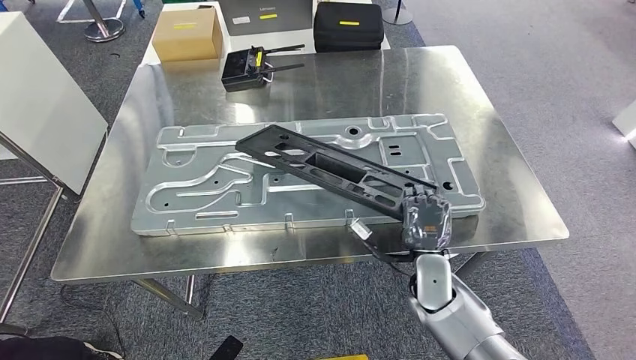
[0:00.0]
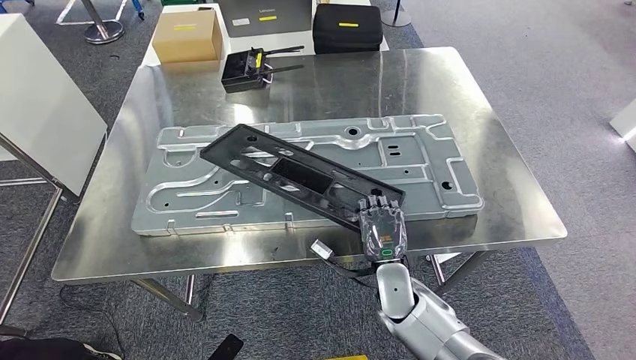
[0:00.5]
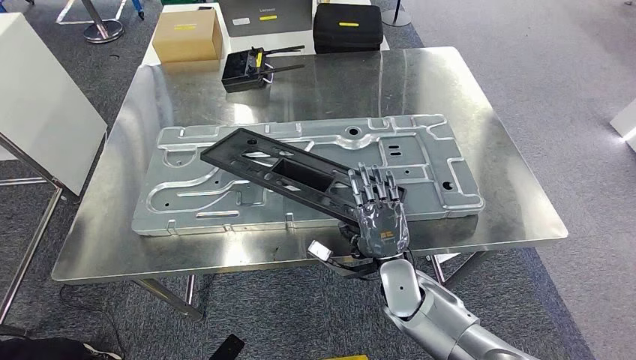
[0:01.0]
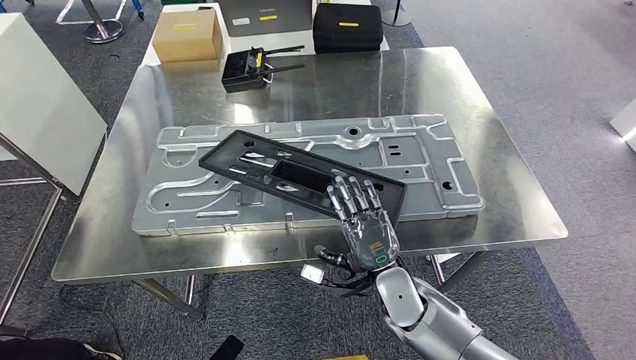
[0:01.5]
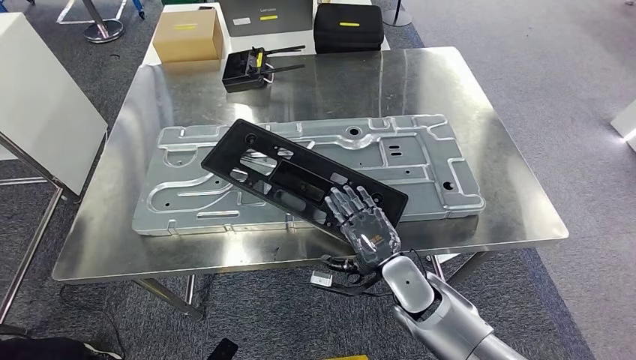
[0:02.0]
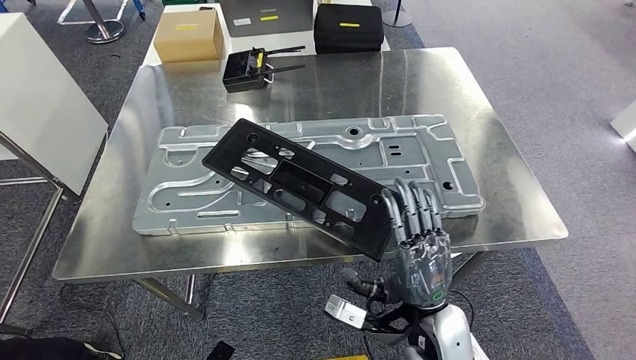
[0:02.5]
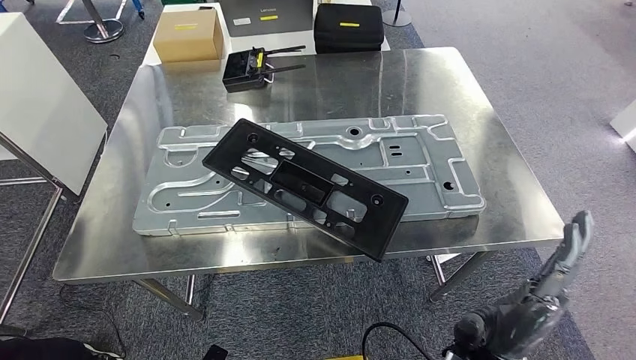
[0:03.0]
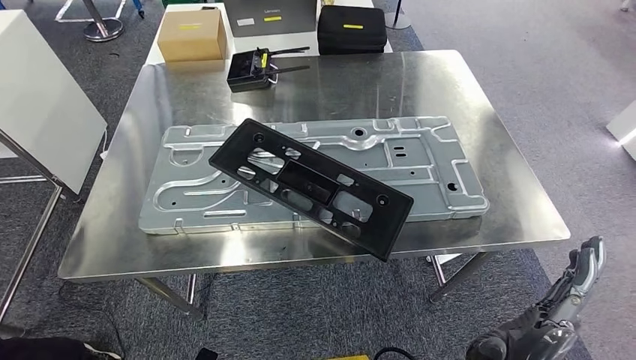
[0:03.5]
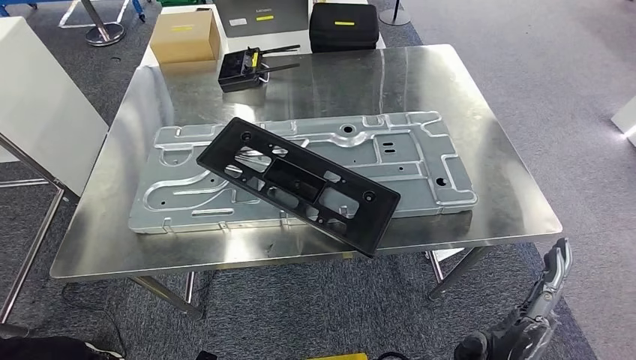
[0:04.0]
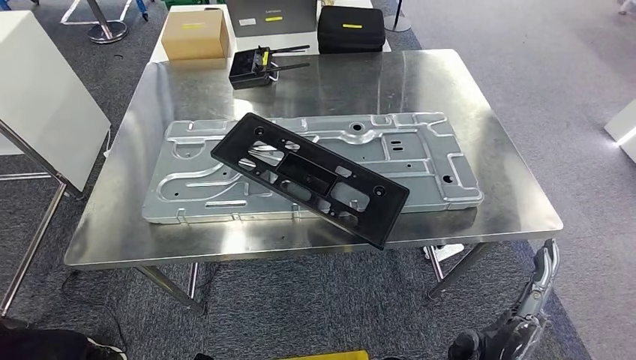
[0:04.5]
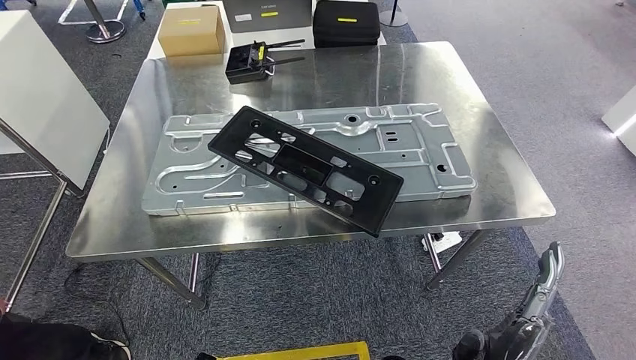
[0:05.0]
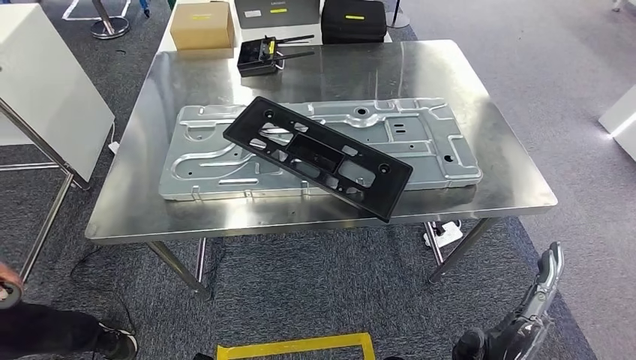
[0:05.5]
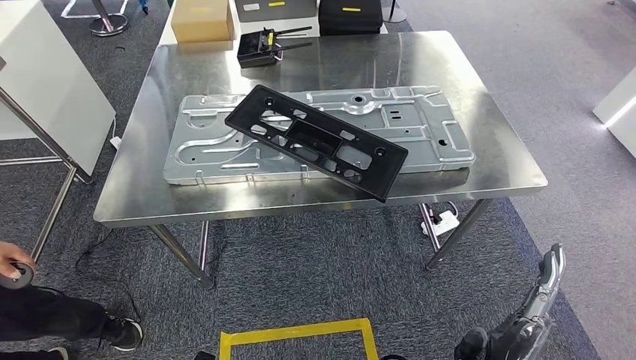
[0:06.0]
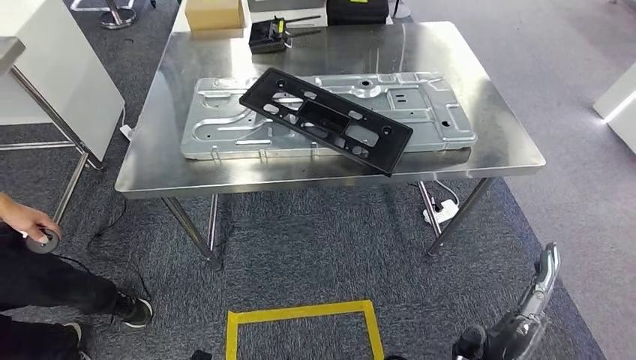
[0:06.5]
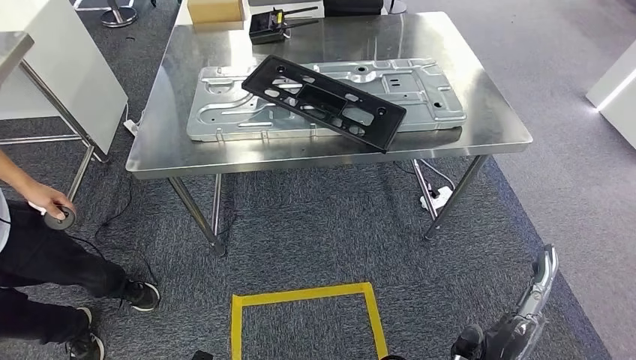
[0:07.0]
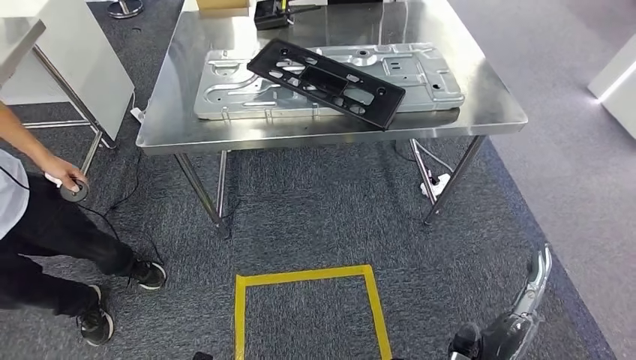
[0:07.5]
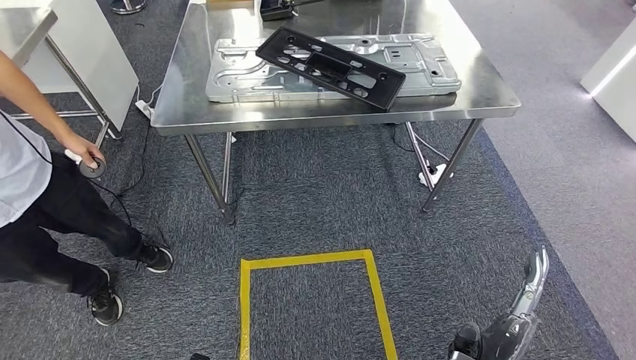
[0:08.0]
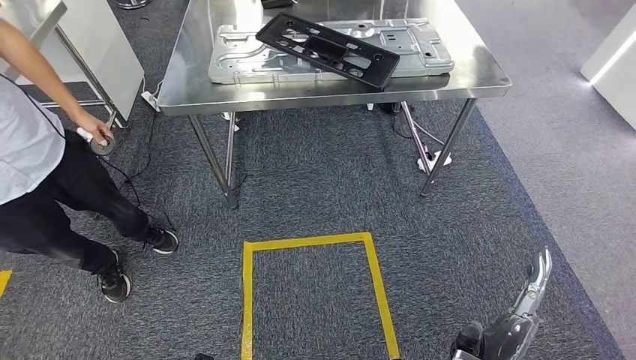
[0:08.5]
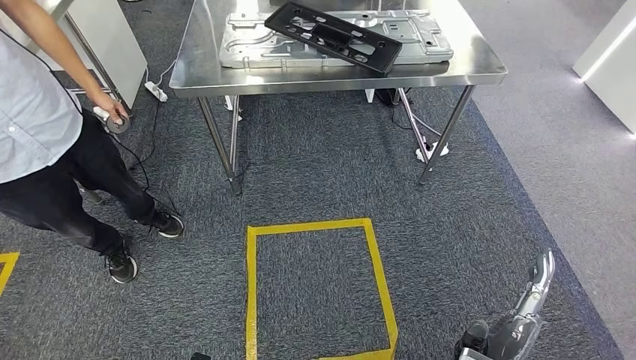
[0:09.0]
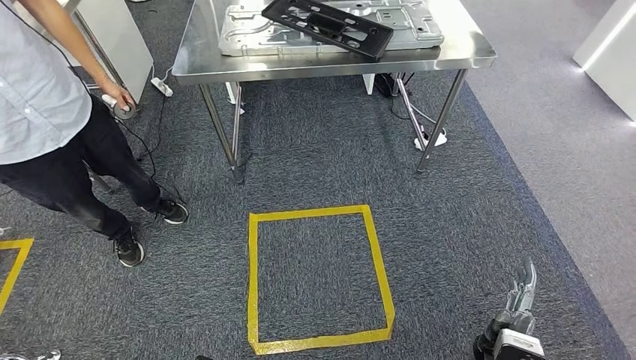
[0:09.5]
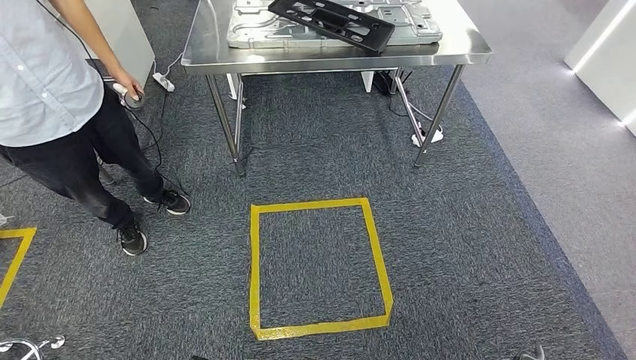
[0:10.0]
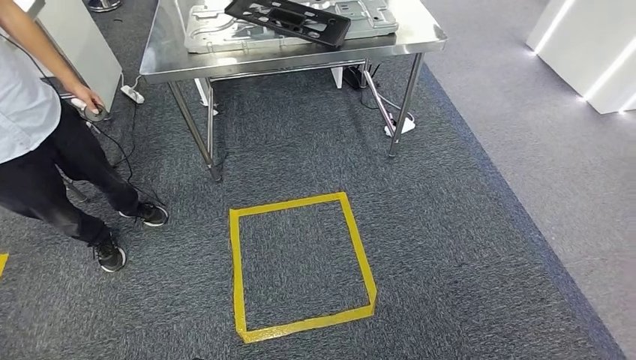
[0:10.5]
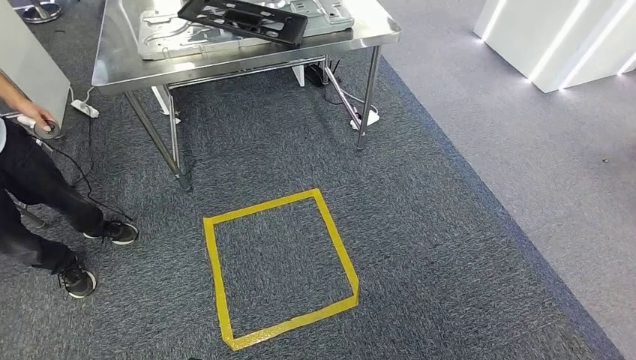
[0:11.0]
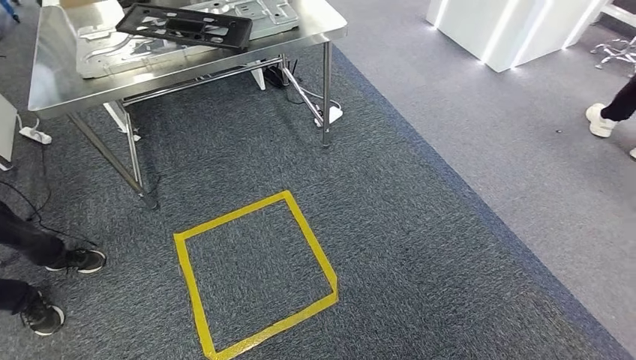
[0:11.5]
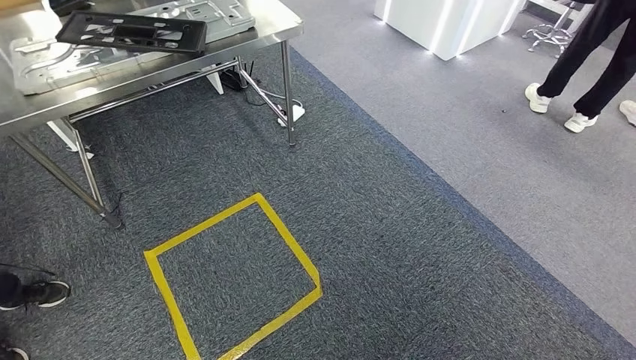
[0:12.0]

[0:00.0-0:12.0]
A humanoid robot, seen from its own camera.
Step, 0:00.0 to 0:03.0: Insert the large material into the corresponding slot on the workbench.
Step, 0:04.0 to 0:10.5: Move to the initial position of the shelf.
0:02.0 to 0:04.0: The right hand moves backward, about 15 cm.

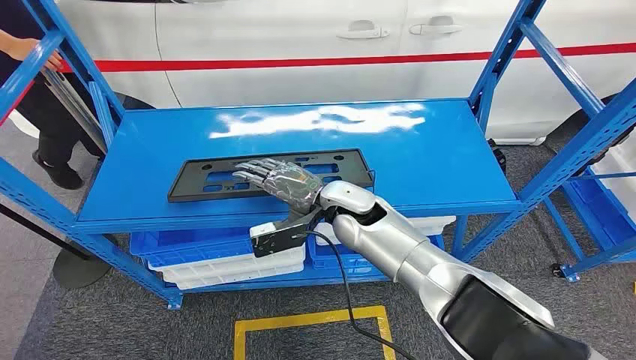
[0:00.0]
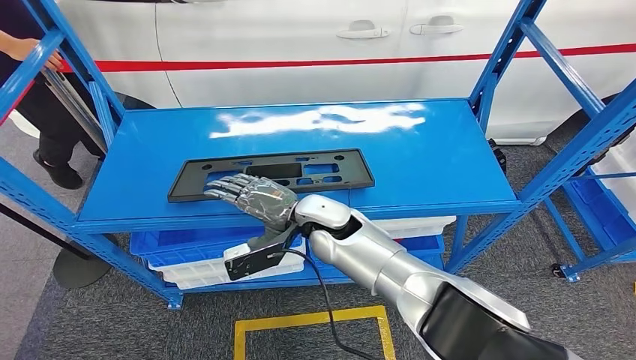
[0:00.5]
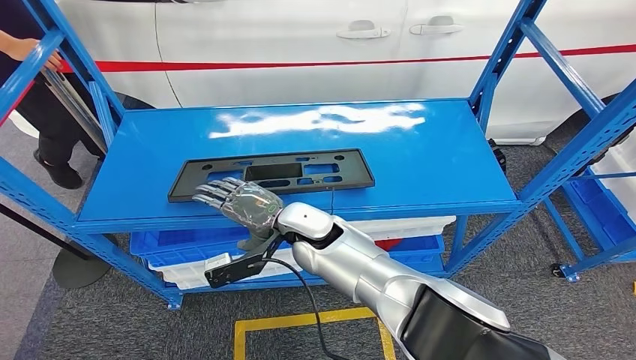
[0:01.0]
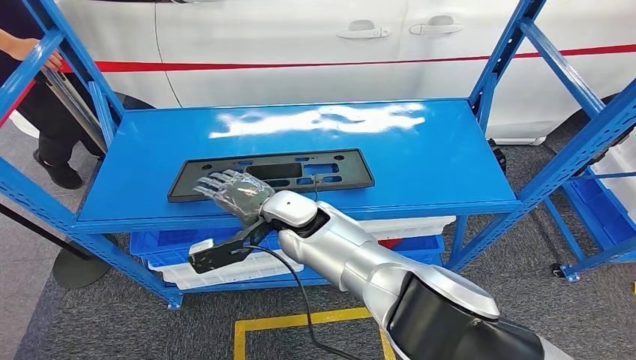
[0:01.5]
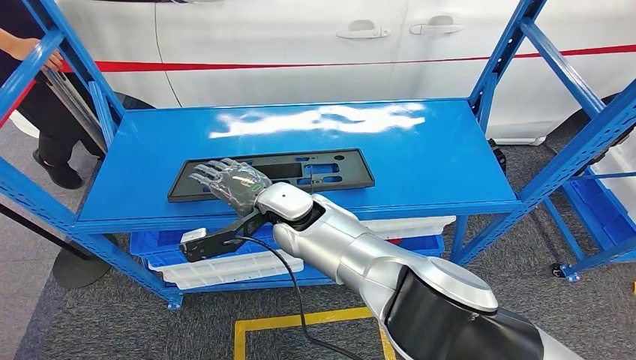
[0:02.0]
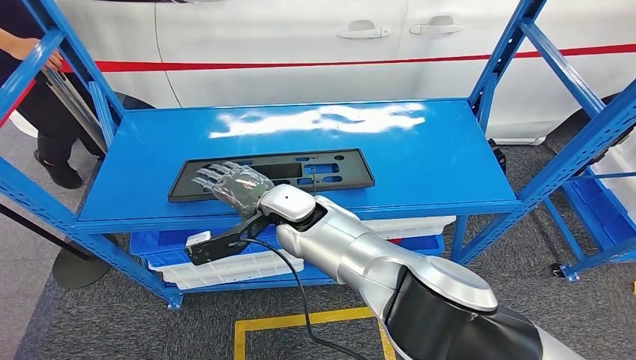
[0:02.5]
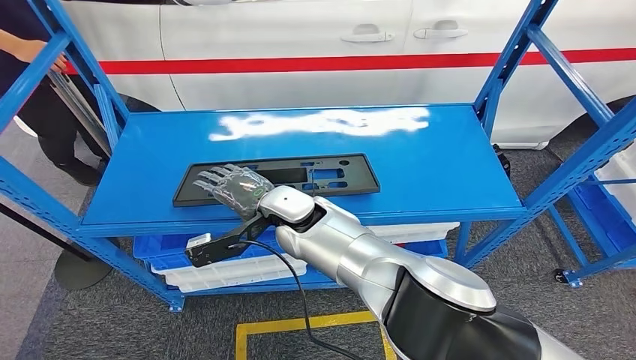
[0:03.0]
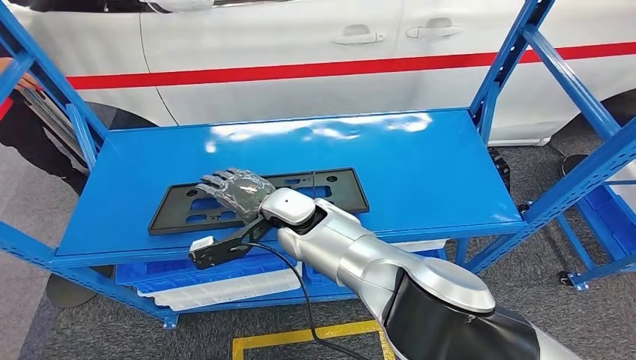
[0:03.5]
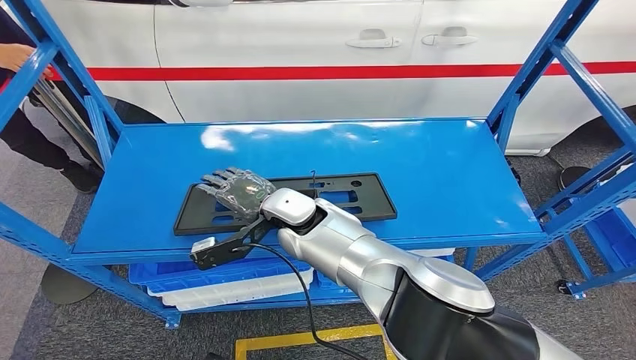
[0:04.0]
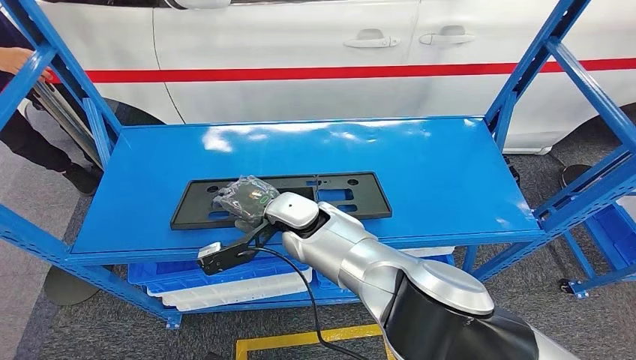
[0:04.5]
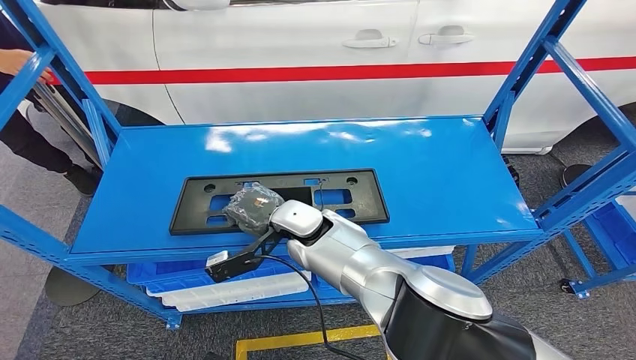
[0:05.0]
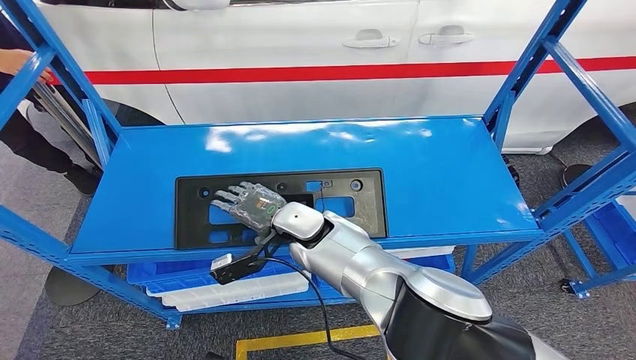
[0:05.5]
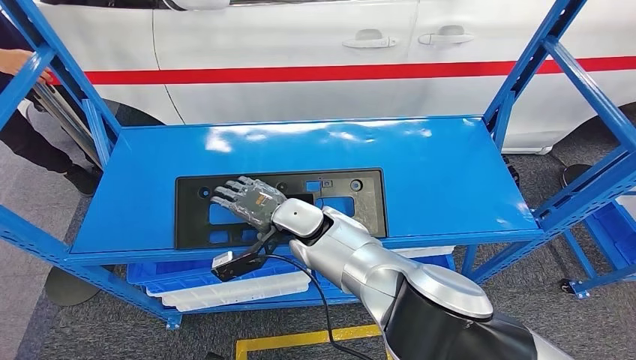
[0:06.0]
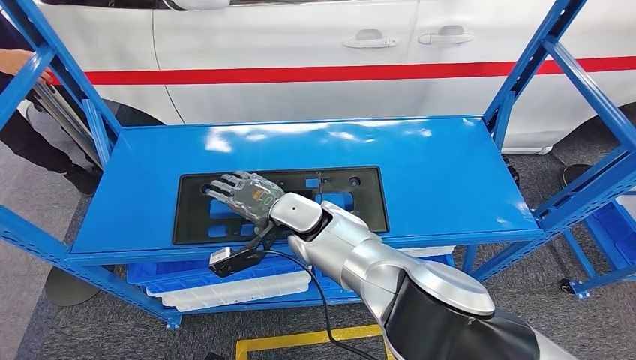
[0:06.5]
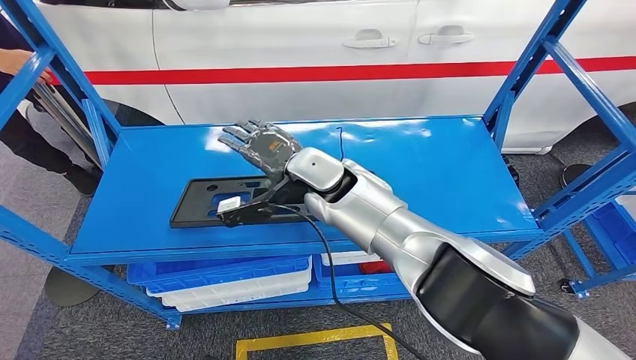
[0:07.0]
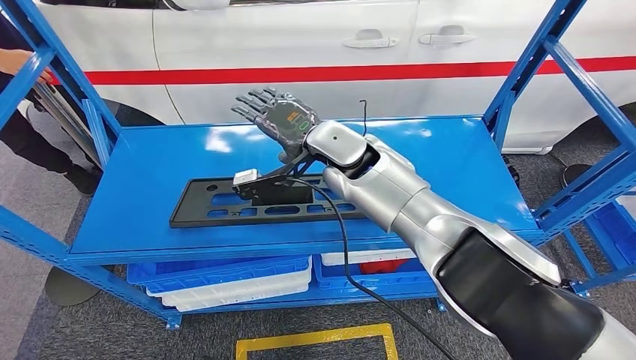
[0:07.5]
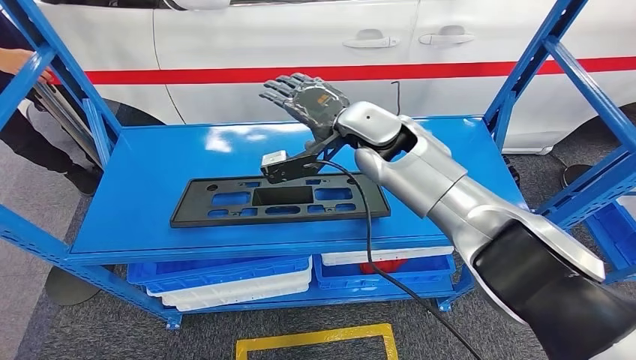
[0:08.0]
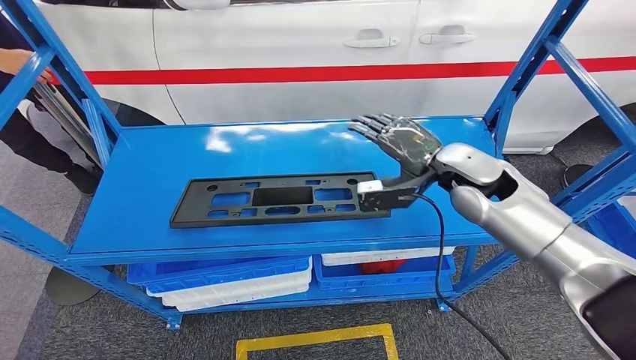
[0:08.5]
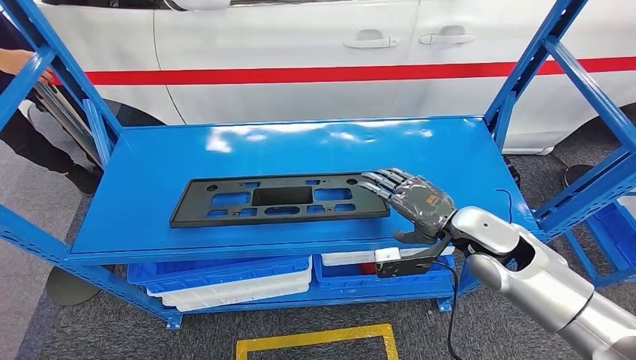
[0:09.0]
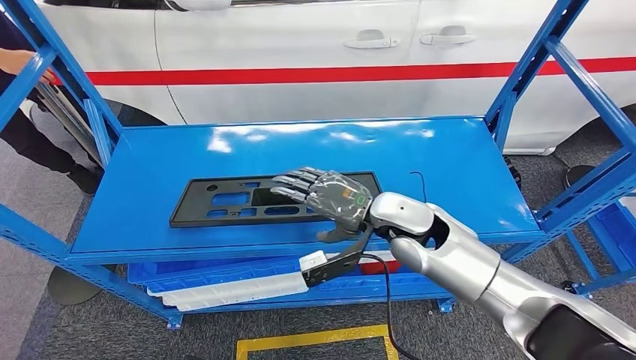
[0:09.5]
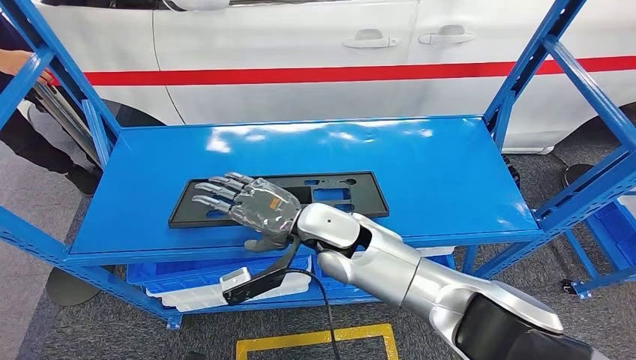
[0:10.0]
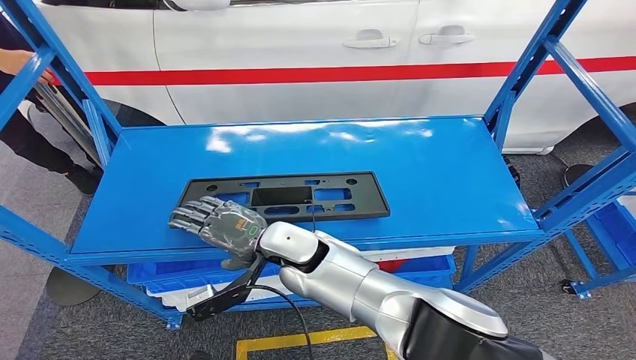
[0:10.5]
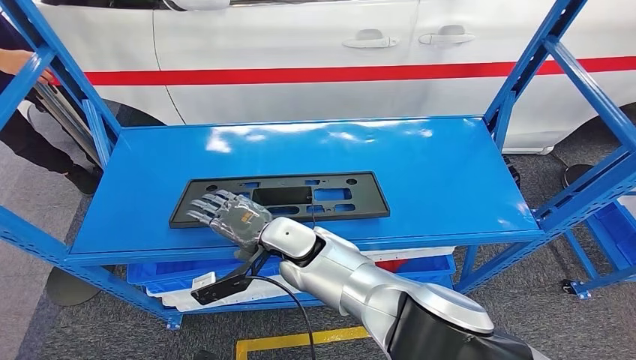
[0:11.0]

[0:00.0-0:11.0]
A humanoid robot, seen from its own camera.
0:07.5 to 0:09.0: The right hand is displaced to the right, backward and downward by roughly 25 cm.
0:09.0 to 0:11.0: The right hand heads to the left, covering approximately 30 cm.
